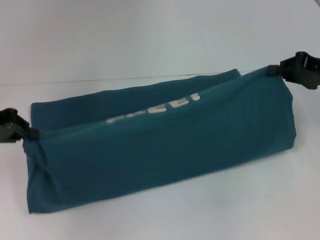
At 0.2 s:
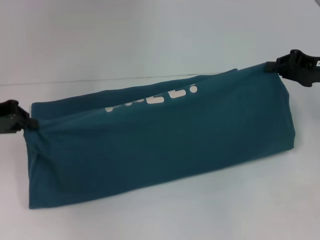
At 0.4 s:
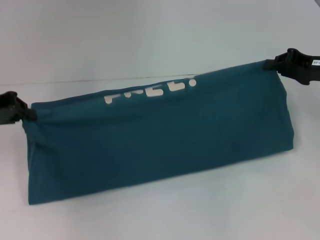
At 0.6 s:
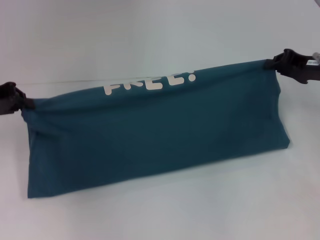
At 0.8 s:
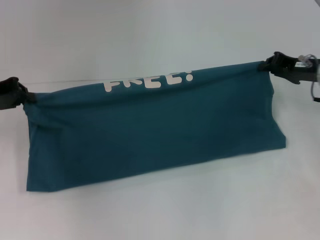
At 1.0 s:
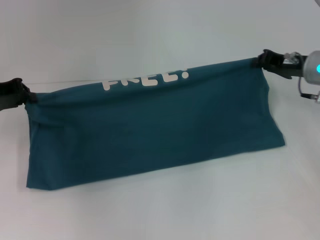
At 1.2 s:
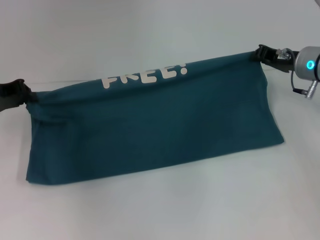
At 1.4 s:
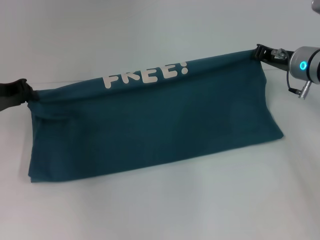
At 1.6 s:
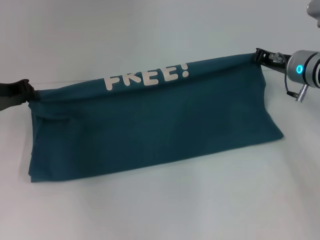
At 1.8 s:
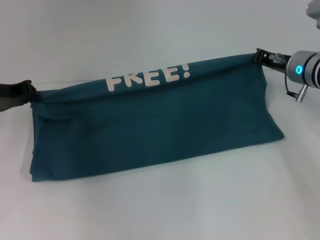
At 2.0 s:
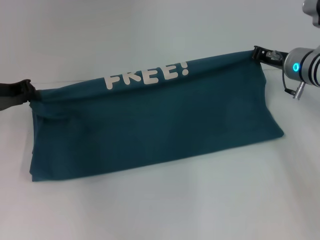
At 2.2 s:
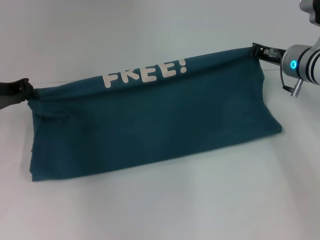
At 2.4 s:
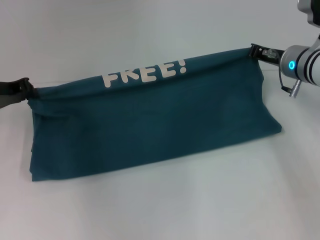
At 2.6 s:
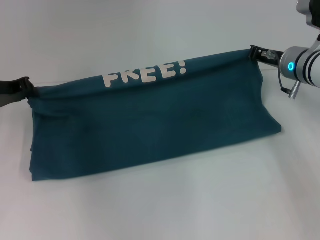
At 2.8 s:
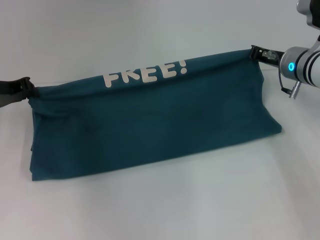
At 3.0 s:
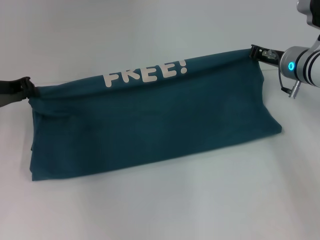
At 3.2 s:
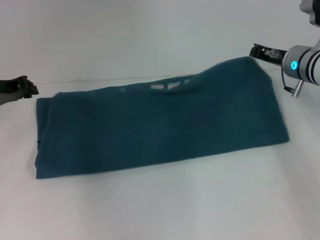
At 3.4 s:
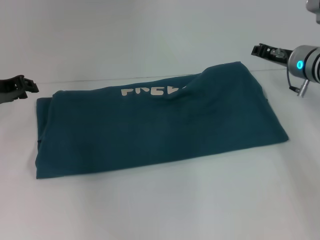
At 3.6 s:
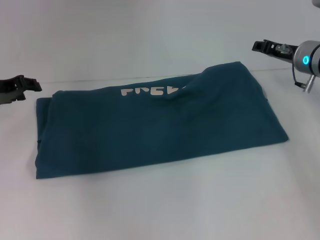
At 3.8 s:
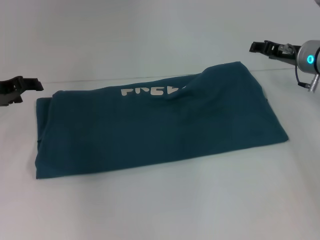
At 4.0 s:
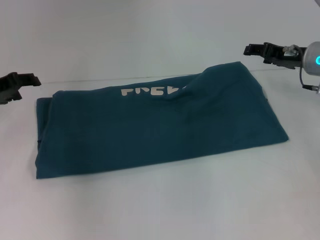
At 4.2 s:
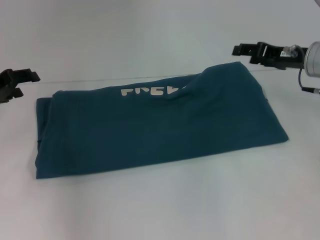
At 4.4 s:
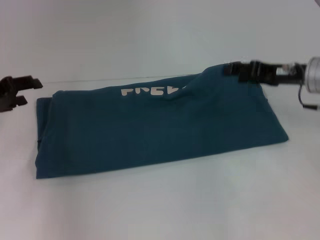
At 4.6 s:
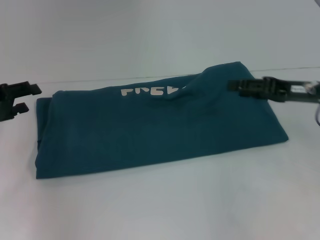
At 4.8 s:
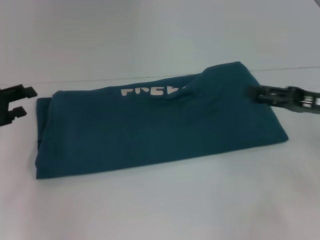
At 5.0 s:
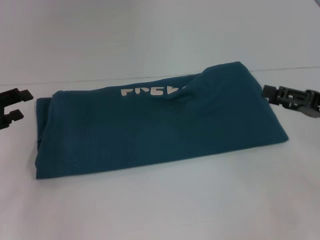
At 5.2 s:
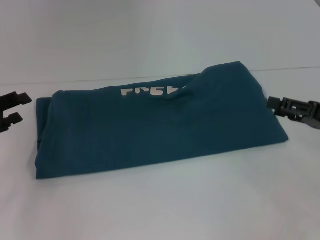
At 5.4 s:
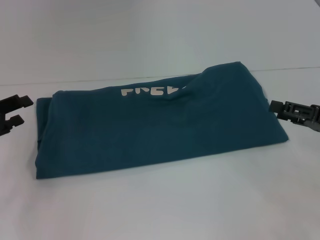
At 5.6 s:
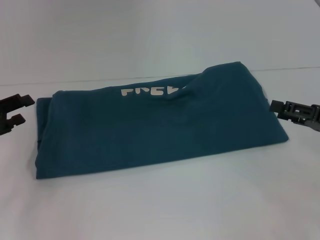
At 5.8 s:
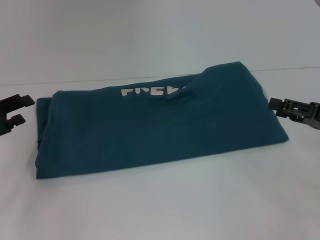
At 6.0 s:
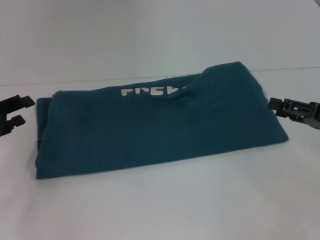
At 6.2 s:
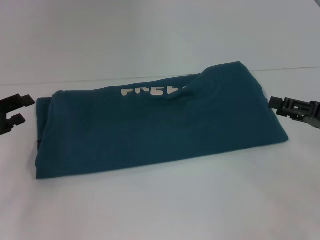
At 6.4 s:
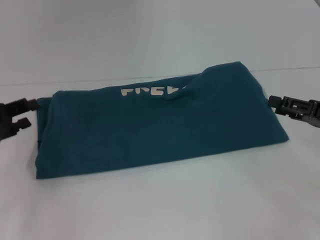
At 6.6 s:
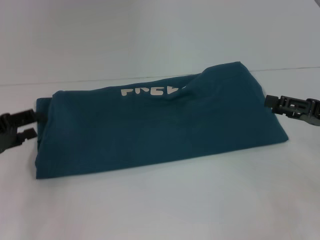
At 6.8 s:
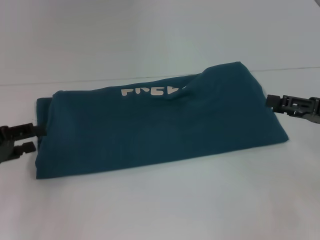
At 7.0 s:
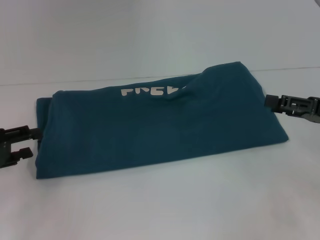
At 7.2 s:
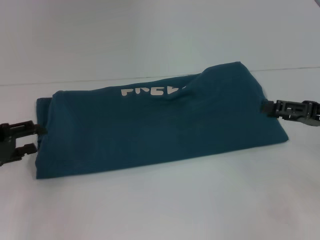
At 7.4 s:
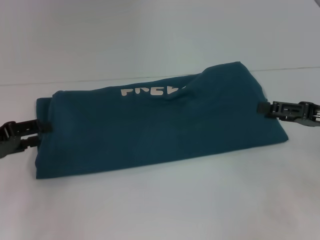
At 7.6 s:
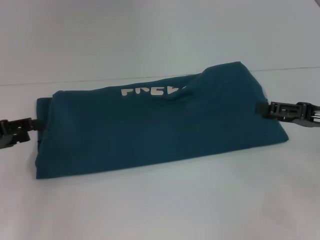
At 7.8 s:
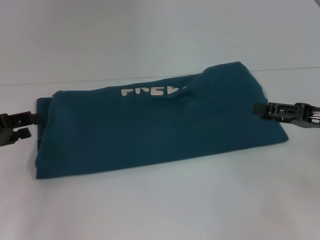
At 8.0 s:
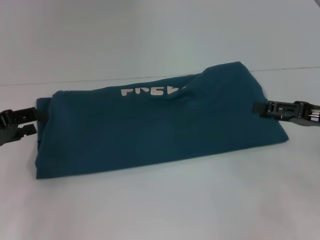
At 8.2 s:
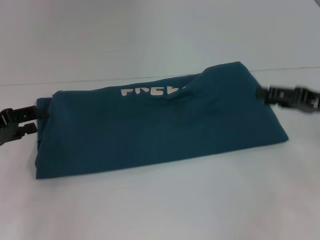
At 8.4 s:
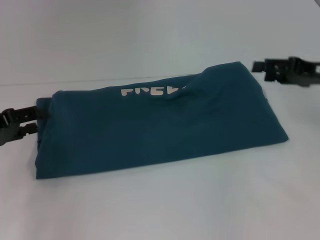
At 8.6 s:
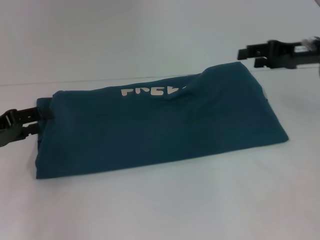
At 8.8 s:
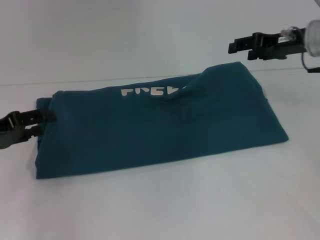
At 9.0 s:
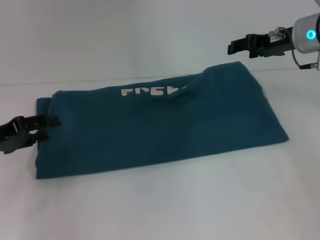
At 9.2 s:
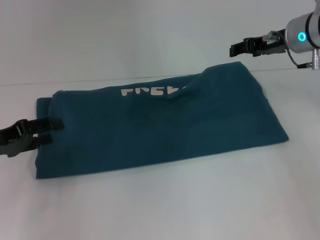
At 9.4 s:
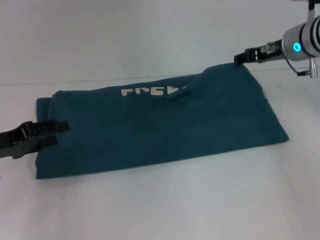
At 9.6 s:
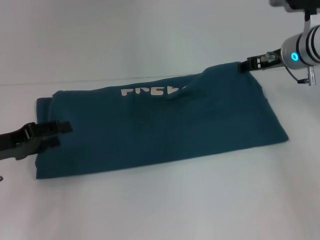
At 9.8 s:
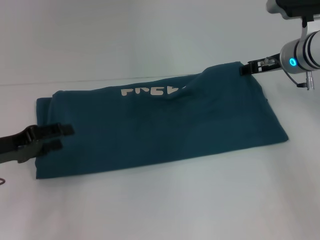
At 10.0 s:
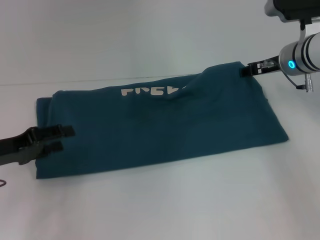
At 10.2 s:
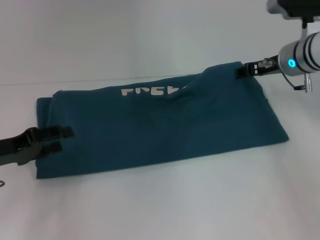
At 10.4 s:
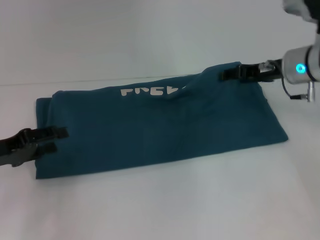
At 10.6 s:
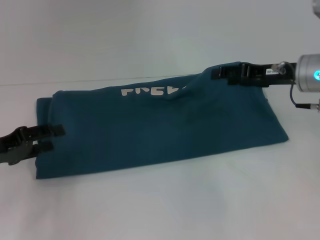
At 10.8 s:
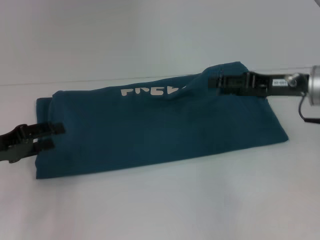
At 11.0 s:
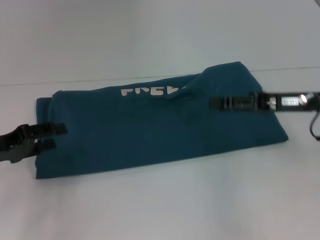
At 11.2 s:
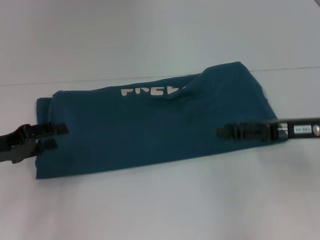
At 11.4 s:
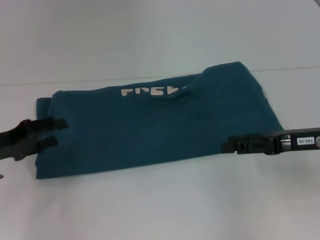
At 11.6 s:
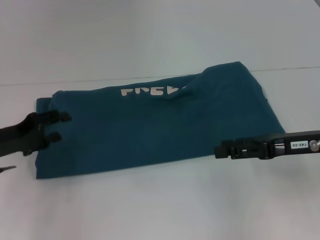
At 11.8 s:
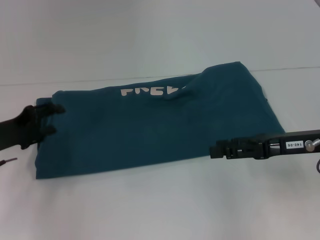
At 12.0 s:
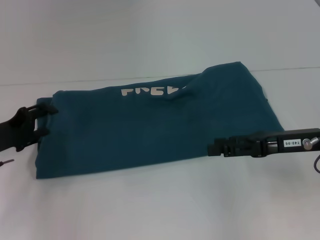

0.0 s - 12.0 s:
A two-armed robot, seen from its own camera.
Step, 0.0 s - 3.8 s: Fold the clothes to the right.
0.0 s - 1.6 s: The left gripper travels forward by about 5 cm. Meanwhile the right gripper travels to the left, forward and downward by some 10 cm.
1.6 s - 3.0 s: The grippers stay close to where they were, moving slightly.
3.0 s - 4.4 s: The right gripper shifts approximately 5 cm backward, and opens up. Meanwhile the left gripper opens up.
4.4 s - 6.0 s: The right gripper goes some 10 cm backward and to the right, while the left gripper is displaced backward by some 5 cm.
6.0 s - 7.6 s: The grippers make only small movements.
7.6 s - 9.0 s: The right gripper moves forward, to the left and upward, roughly 20 cm.
10.4 s - 12.0 s: The right gripper is displaced backward by about 10 cm.

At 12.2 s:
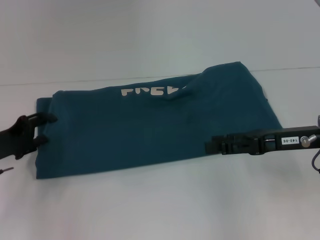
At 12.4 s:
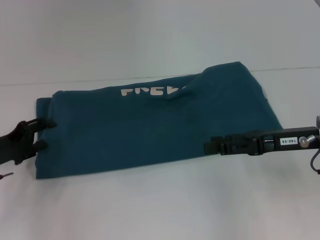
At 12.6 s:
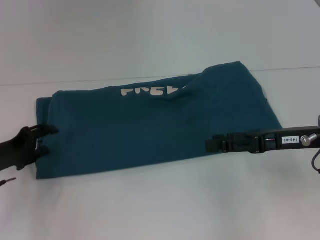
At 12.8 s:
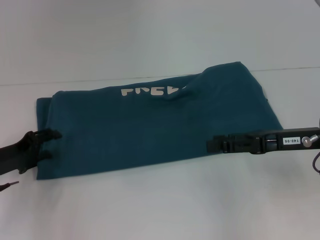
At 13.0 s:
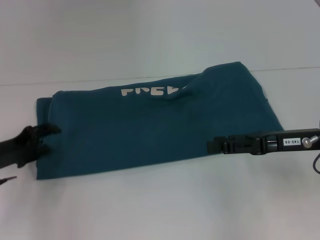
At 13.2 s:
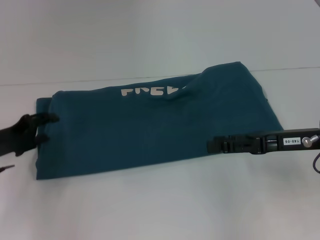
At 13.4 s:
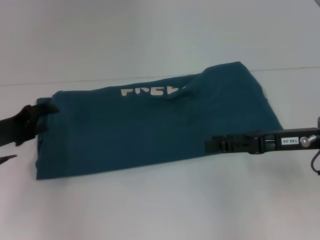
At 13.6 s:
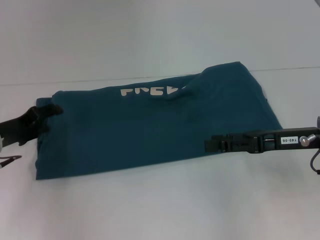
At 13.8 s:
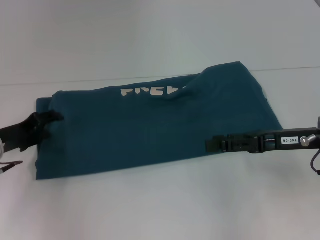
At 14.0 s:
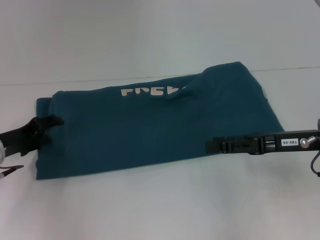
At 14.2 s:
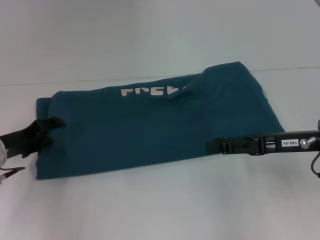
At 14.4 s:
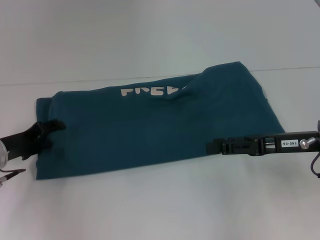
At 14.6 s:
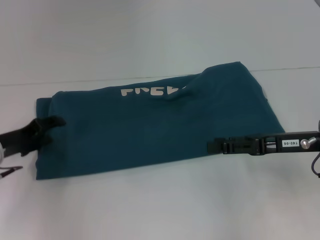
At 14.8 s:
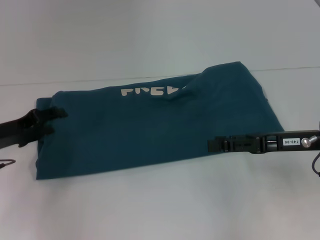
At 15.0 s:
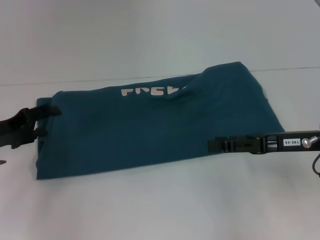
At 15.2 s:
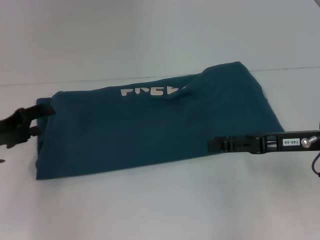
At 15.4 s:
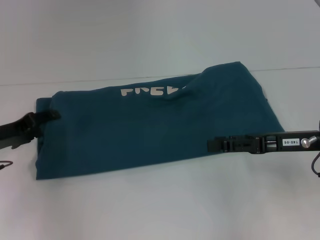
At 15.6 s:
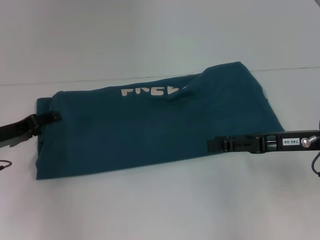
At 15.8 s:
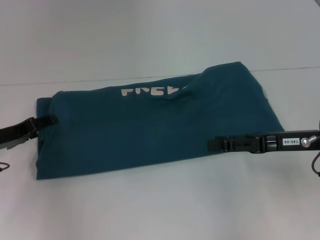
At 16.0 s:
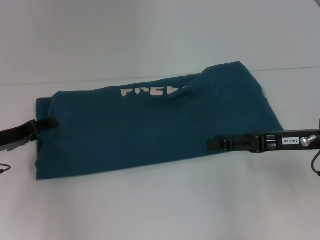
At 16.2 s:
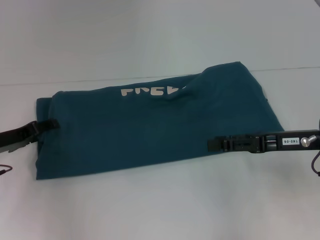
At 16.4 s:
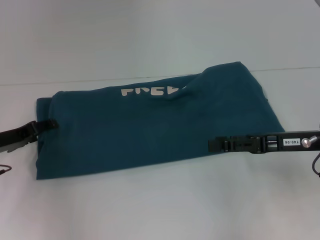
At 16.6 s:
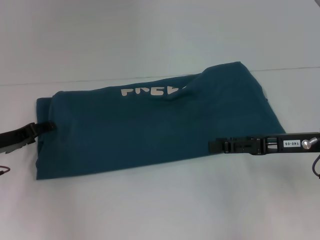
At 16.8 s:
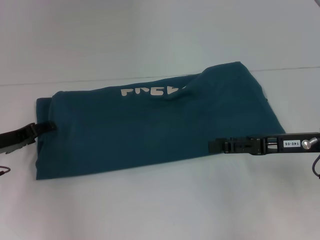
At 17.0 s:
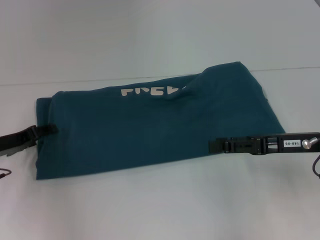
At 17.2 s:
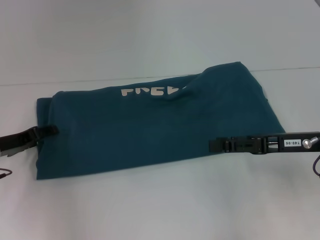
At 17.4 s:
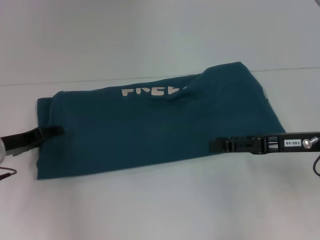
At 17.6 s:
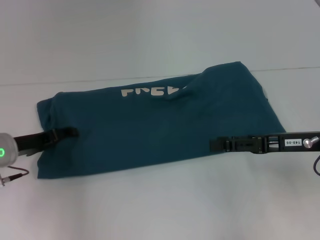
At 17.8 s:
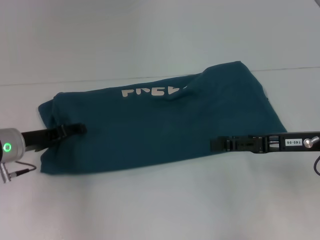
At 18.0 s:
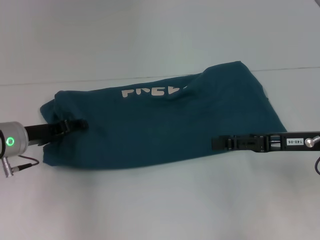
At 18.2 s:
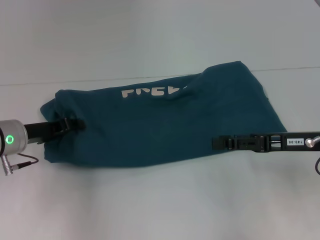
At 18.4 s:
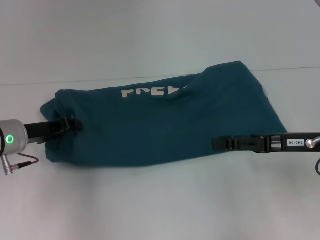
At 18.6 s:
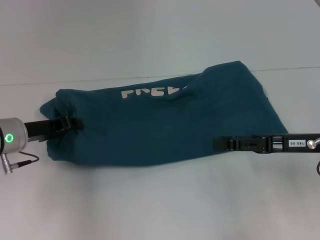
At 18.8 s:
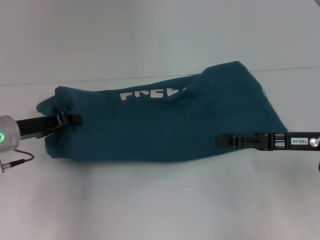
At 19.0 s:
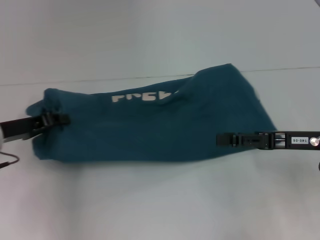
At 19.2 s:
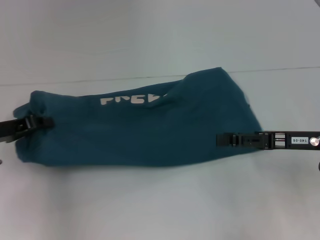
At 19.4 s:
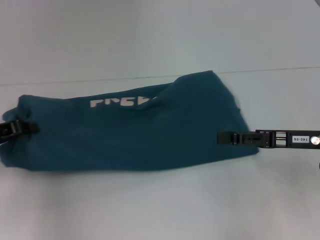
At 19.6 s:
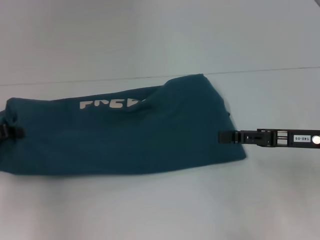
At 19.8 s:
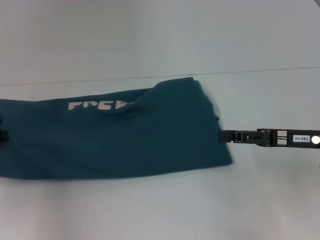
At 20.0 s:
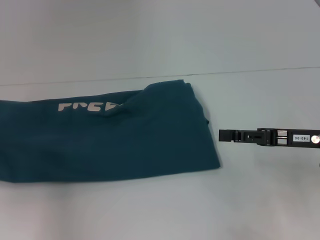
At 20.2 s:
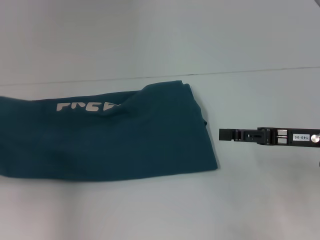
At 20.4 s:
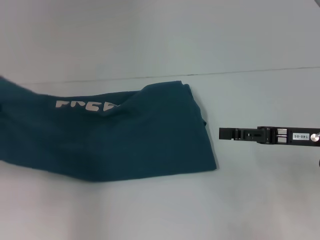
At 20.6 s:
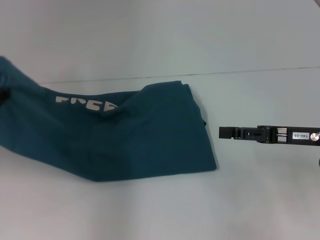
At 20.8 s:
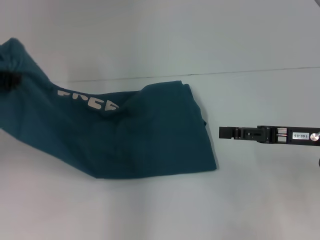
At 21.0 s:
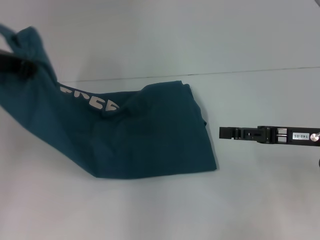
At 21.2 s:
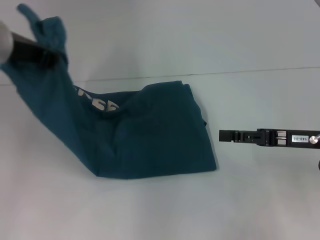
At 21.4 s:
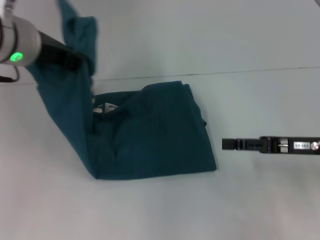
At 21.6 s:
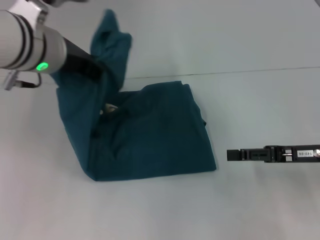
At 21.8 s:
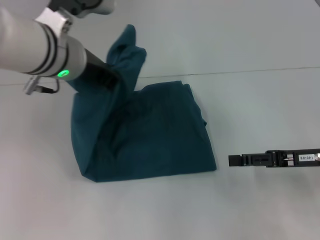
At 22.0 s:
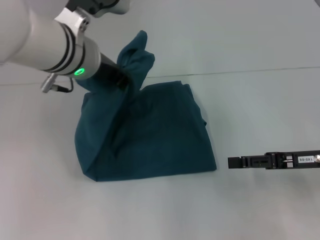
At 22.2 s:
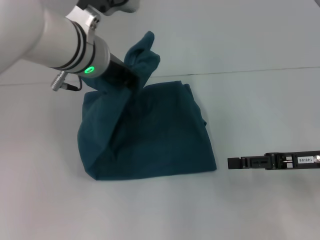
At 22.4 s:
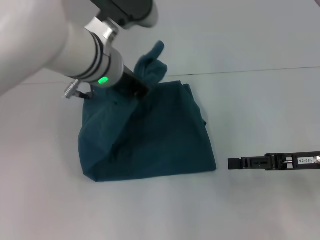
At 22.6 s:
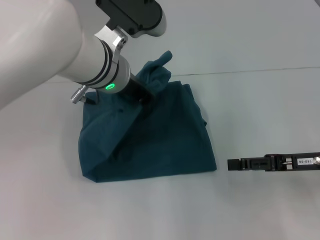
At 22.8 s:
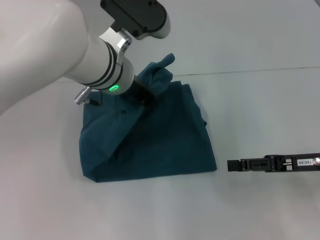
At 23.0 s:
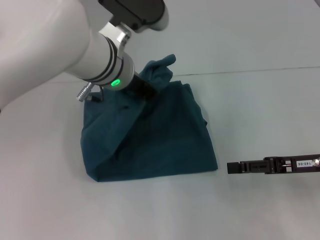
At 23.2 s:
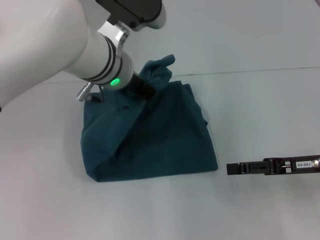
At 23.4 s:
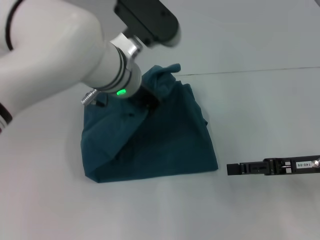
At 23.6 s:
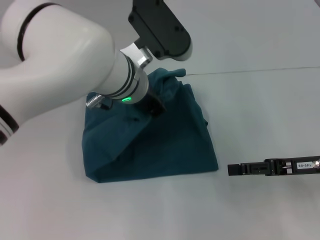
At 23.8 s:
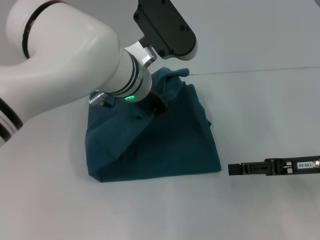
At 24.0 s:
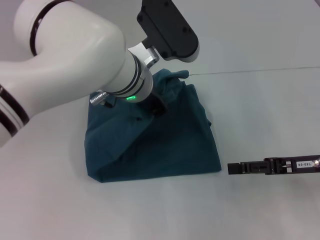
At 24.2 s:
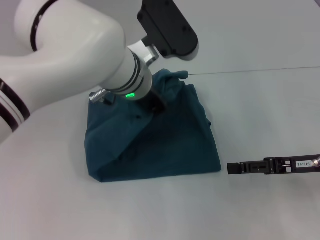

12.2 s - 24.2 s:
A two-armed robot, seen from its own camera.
12.2 s - 15.2 s: The grippers move only a little.
15.2 s - 16.6 s: The grippers stay close to where they were, moving slightly.
16.6 s - 18.2 s: The left gripper ends up about 5 cm from where it was.
18.2 s - 19.8 s: The left gripper heads to the left, covering some 10 cm, and closes.
19.8 s - 21.2 s: The left gripper is displaced to the right and upward by about 20 cm.
21.2 s - 22.6 s: The left gripper heads to the right and downward, covering some 15 cm.
